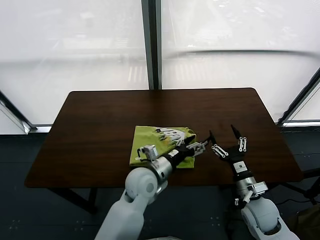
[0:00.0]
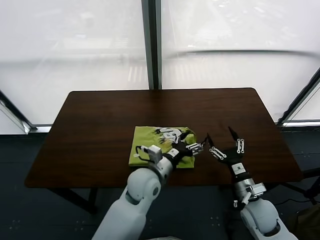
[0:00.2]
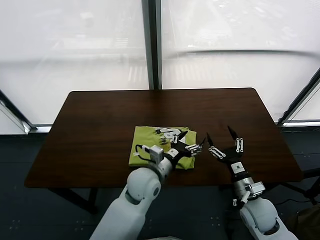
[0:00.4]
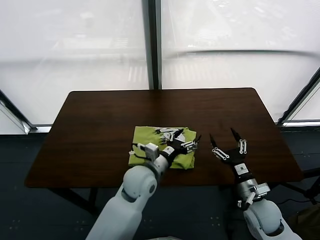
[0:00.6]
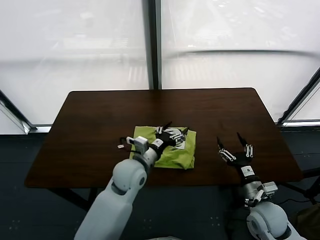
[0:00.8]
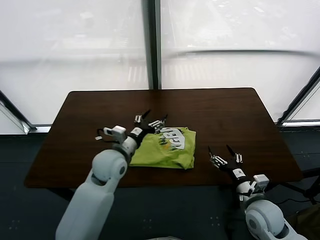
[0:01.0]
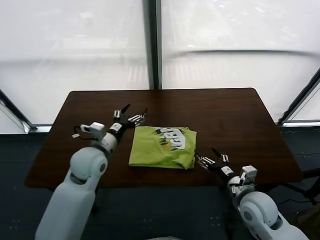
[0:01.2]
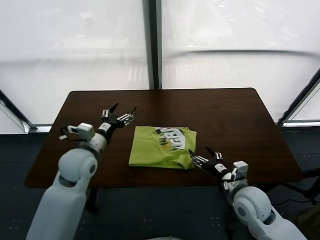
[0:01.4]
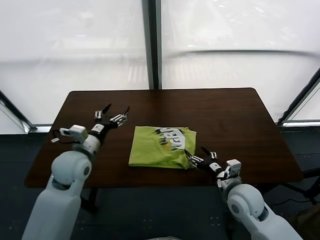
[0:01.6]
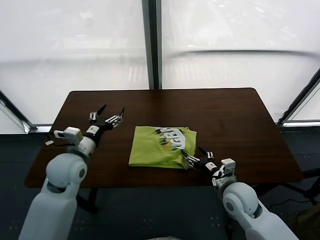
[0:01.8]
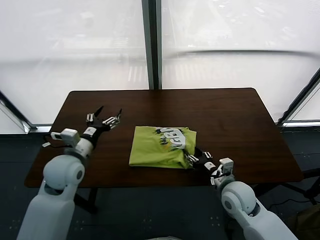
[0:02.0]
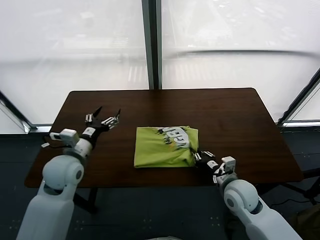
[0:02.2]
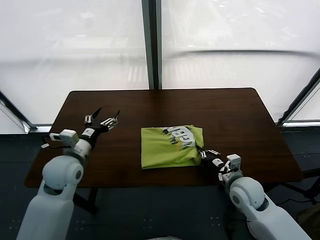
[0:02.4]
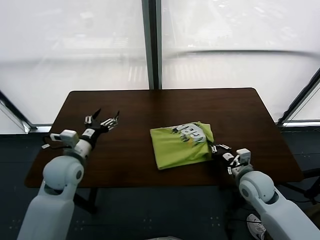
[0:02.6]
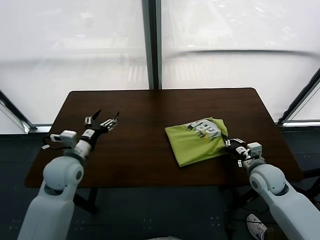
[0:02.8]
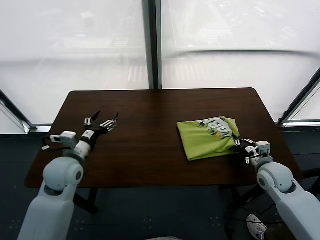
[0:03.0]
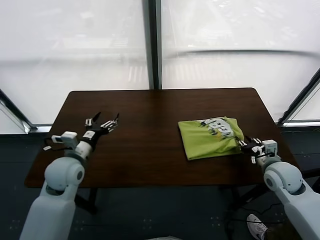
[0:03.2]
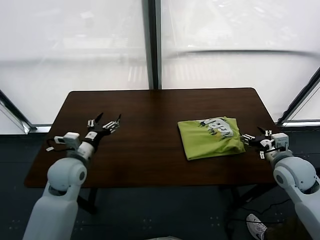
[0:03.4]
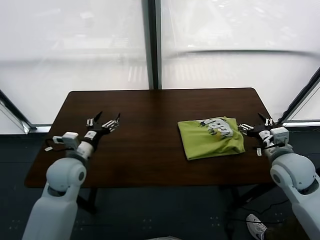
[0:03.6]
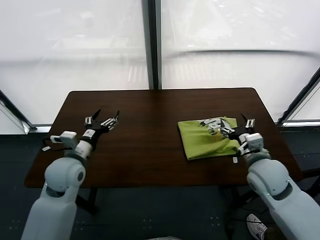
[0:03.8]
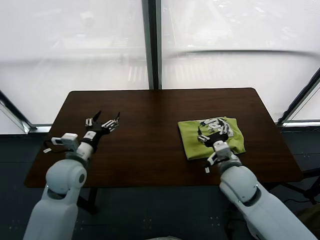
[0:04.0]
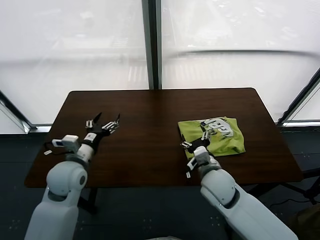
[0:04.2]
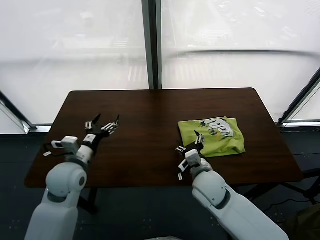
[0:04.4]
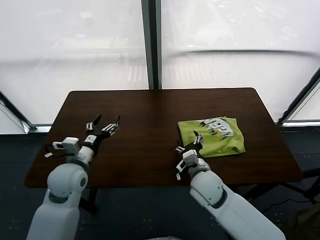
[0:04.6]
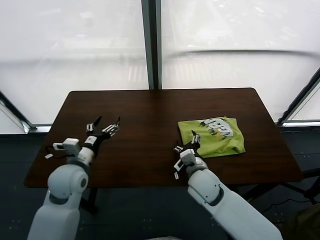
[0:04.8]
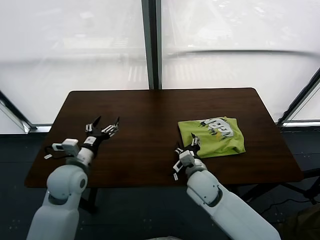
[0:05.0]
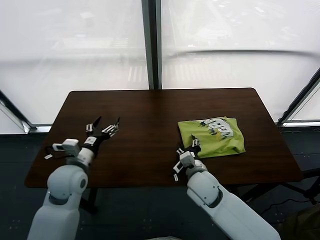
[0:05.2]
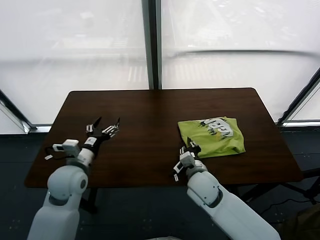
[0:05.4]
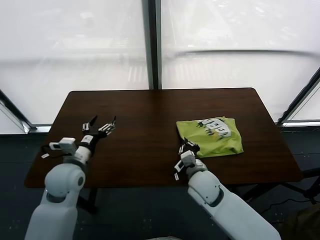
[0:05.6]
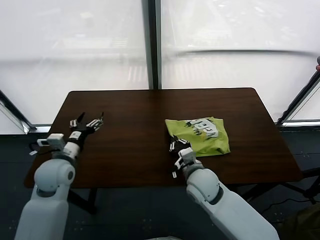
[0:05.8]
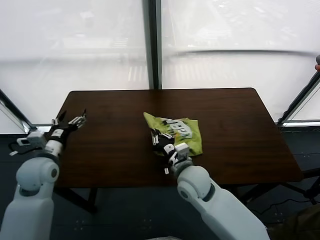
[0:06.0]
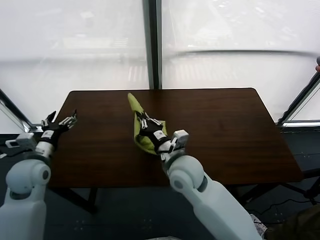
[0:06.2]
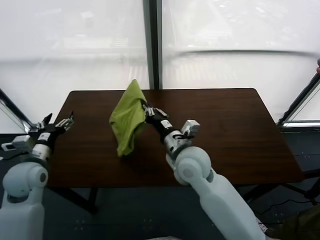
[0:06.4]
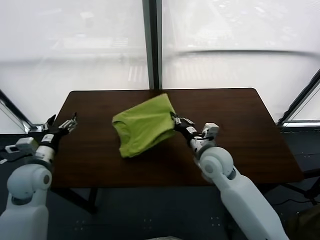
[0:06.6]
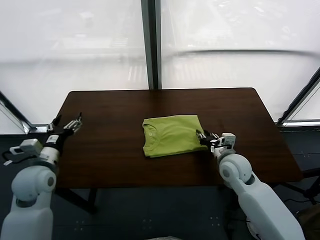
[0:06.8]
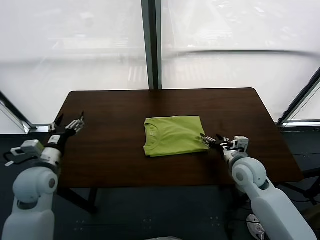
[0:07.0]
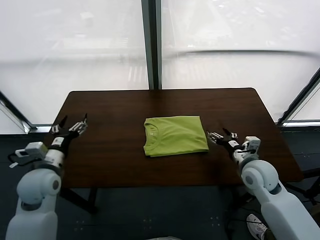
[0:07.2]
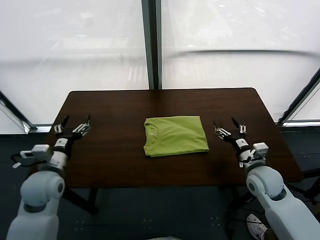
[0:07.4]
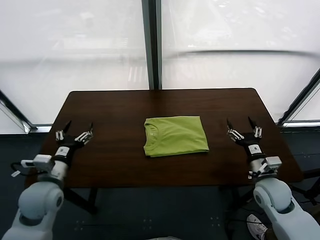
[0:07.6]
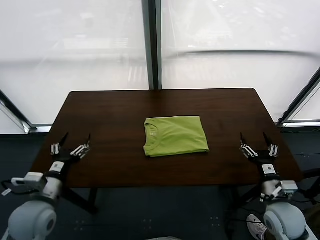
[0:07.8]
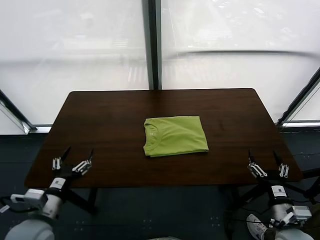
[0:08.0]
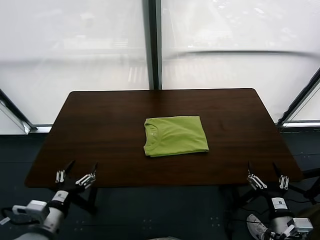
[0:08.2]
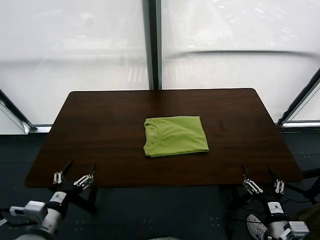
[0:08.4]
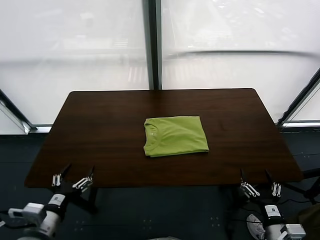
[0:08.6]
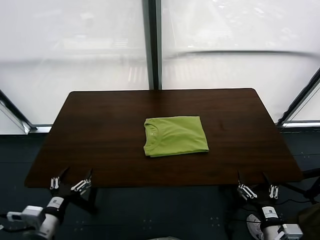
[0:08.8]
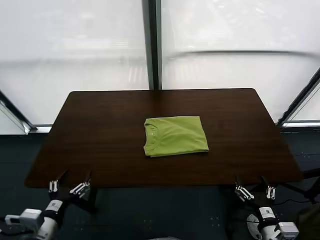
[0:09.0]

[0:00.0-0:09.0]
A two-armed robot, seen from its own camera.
Task of the whole recording: fold and organize the clothes.
Step, 0:00.0 to 0:03.2: Drag the clothes to the center of the table.
Step, 0:03.6 to 0:06.8: Flip the folded clothes over with right gripper.
0:00.0 to 0:01.6: The left gripper heads to the left, covering some 20 cm. The right gripper goes roughly 5 cm to the left.
0:01.6 to 0:03.0: The right gripper moves to the right, approximately 15 cm, and closes, then opens again.
0:03.0 to 0:04.4: The right gripper heads to the left, covering about 25 cm.
0:04.4 to 0:06.0: The right gripper heads upward and to the left, covering some 10 cm, and closes. Meanwhile the left gripper goes about 10 cm to the left.
0:06.0 to 0:07.6: The right gripper travels to the right and backward by roughly 30 cm, and opens up, while the left gripper travels backward and to the right by roughly 15 cm.
0:07.6 to 0:09.0: The right gripper heads backward and to the left, covering roughly 10 cm.

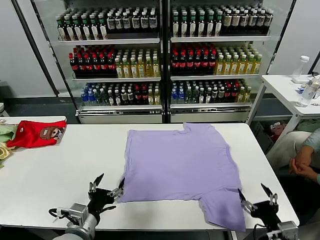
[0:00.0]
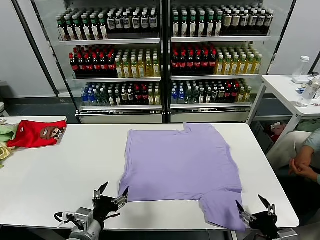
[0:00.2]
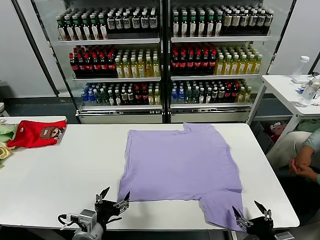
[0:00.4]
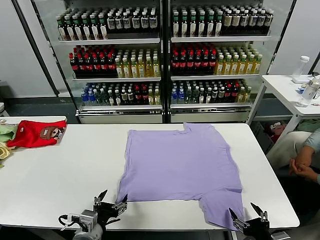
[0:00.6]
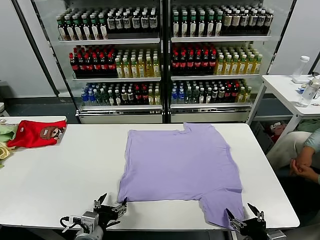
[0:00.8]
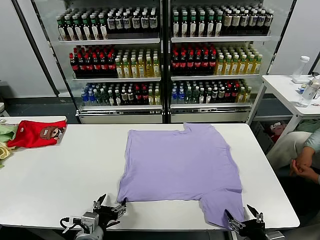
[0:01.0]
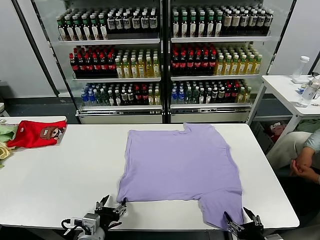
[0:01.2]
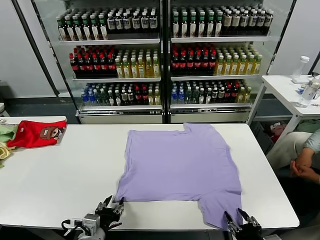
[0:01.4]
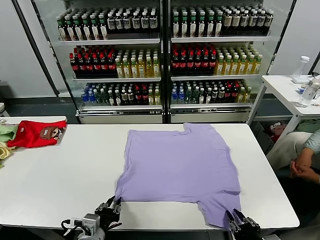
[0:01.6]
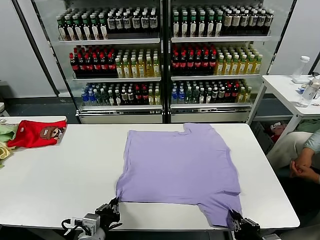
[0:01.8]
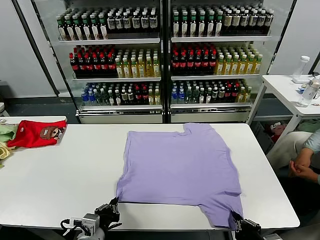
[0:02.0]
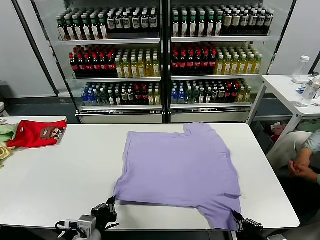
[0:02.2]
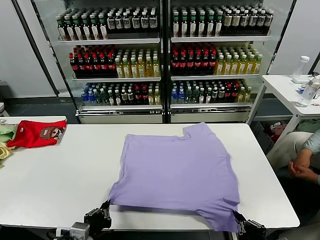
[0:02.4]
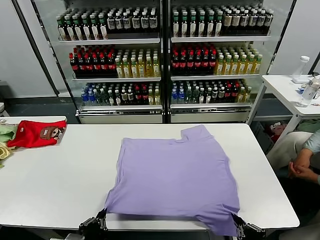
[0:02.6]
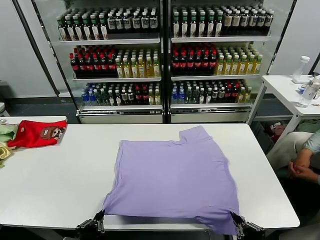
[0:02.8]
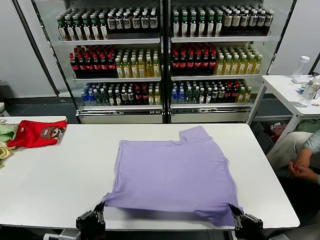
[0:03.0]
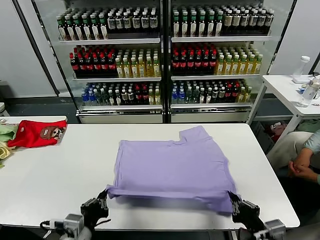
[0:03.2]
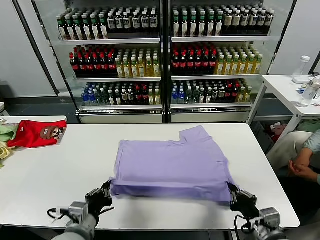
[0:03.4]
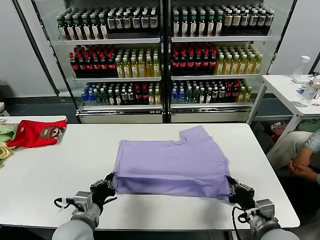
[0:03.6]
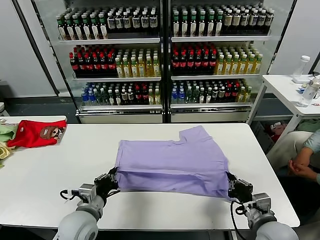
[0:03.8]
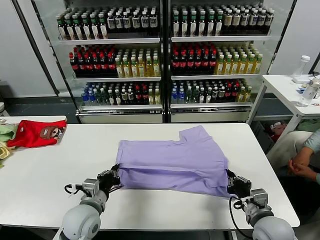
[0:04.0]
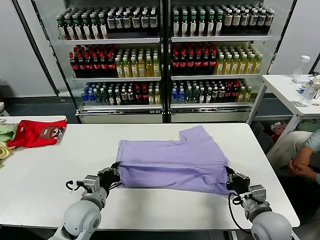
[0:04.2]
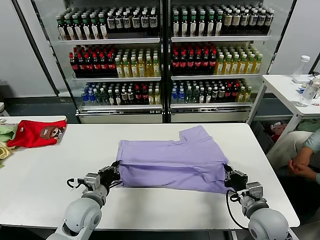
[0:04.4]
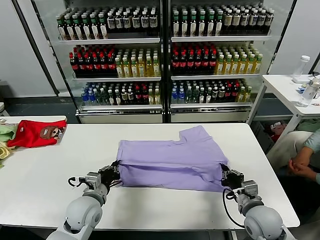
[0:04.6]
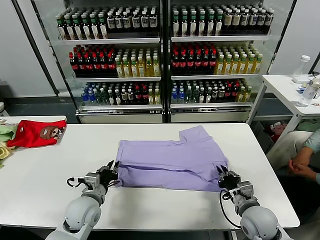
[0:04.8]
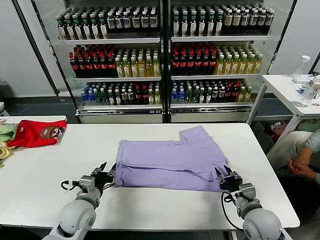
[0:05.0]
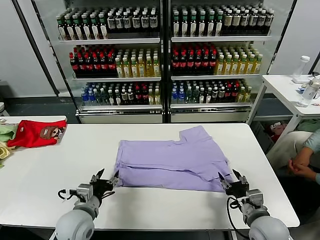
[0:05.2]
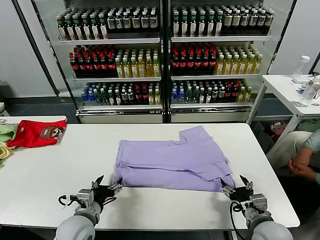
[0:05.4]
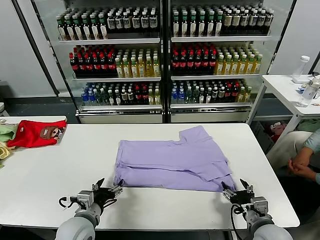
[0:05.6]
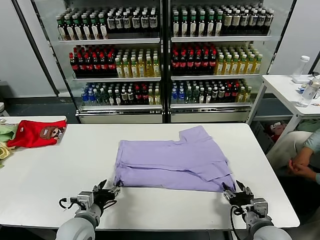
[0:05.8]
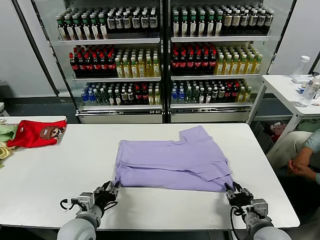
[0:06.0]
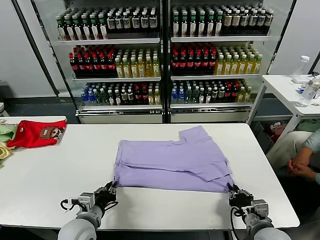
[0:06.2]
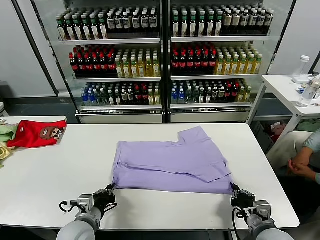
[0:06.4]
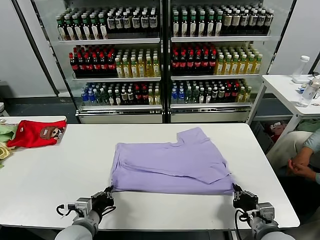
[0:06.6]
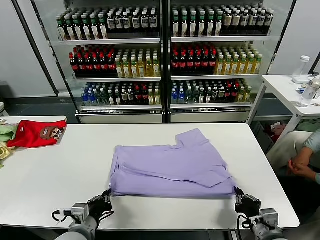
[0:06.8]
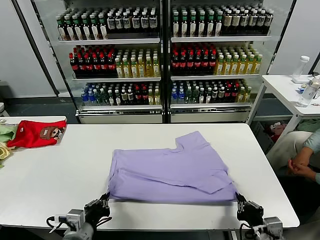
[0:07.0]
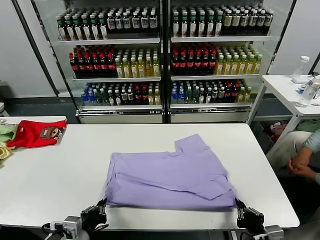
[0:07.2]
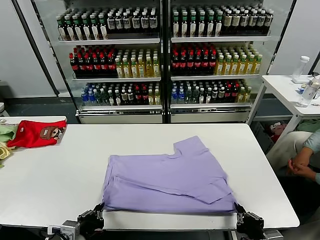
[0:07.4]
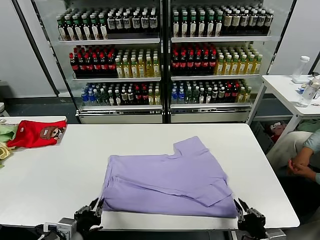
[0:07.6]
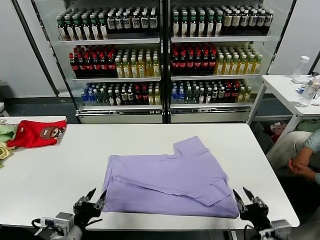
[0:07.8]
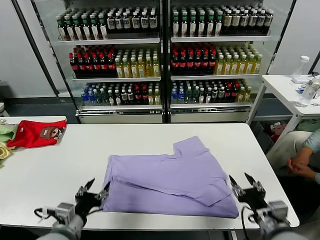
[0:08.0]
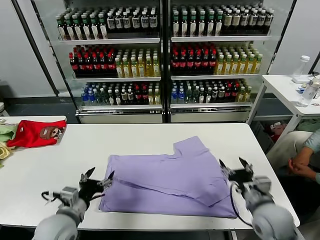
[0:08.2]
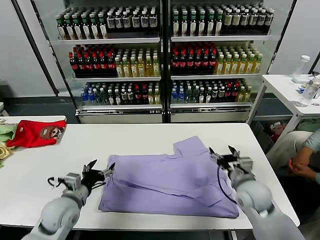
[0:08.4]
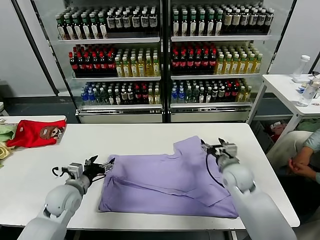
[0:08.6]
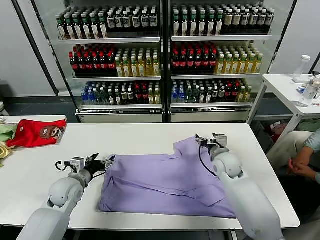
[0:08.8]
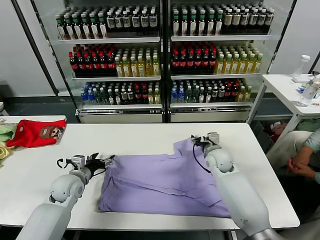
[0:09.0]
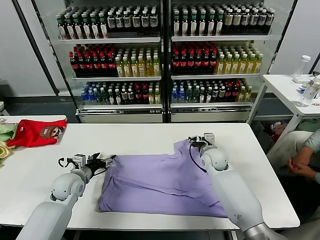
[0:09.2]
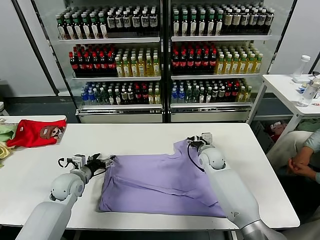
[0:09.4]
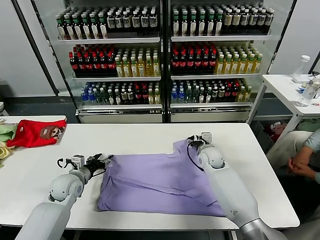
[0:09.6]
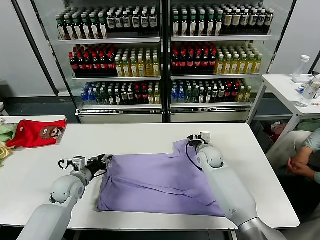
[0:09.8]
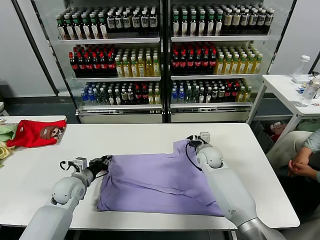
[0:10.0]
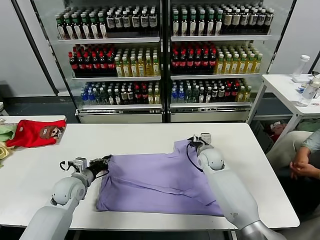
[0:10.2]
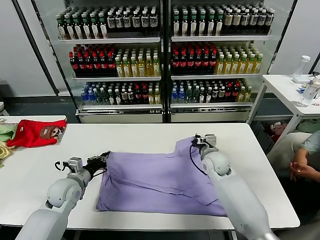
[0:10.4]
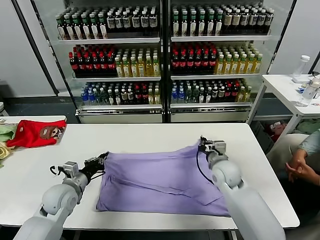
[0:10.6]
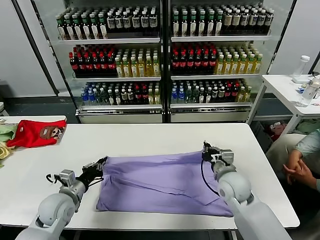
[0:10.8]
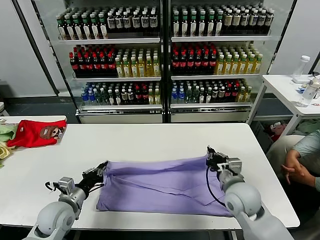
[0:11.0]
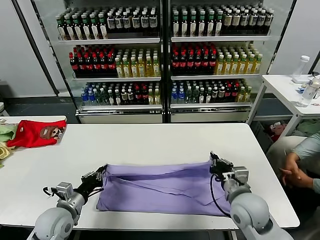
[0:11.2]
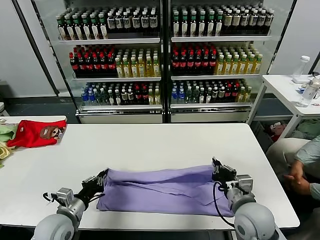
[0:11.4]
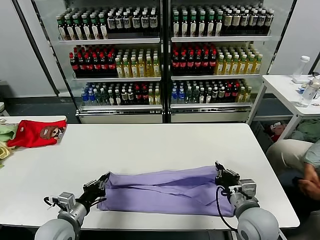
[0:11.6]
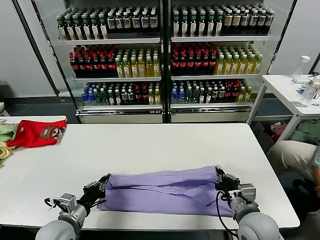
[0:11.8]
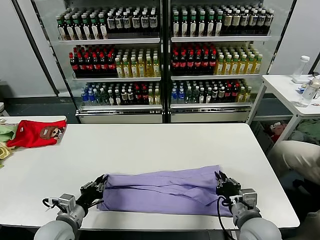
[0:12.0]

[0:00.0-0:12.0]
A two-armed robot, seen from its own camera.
Task of the whole recording: fold and organize the clothes.
Step, 0:00.0 to 0:01.8: use both grippers simultaneously to clamp the lower edge of the clothing fabric.
Step, 0:02.0 to 0:05.0: use both grippers to drag the lower edge of the fabric forward and fold it over the upper edge.
Step, 0:05.2 to 0:07.8: Drag the clothes downward with both gripper.
Step, 0:08.2 to 0:10.2: use both grippers simultaneously to clamp the upper edge of the clothing fabric.
0:01.6 to 0:03.0: The right gripper shifts about 5 cm upward. The left gripper shifts approximately 10 cm upward and backward.
0:03.0 to 0:04.4: Both grippers travel together forward, roughly 15 cm.
0:04.4 to 0:06.0: Both grippers travel together backward, roughly 5 cm. The left gripper opens. The right gripper opens.
0:06.0 to 0:07.6: Both grippers move backward, about 10 cm.
0:07.6 to 0:09.0: The right gripper shifts some 35 cm forward, and opens up; the left gripper moves forward, roughly 25 cm, and opens up.
0:09.0 to 0:10.4: The right gripper closes up. The left gripper closes.
0:10.4 to 0:12.0: The left gripper travels backward by roughly 15 cm. Meanwhile the right gripper travels backward by approximately 25 cm.
